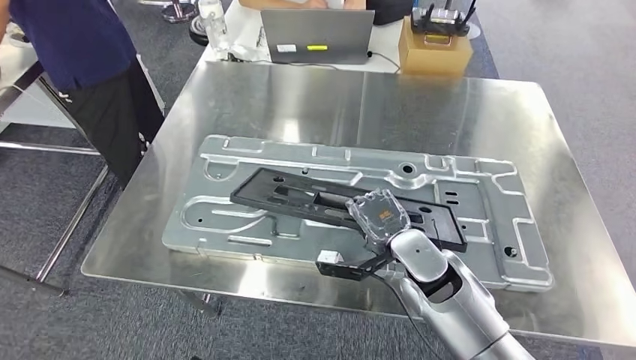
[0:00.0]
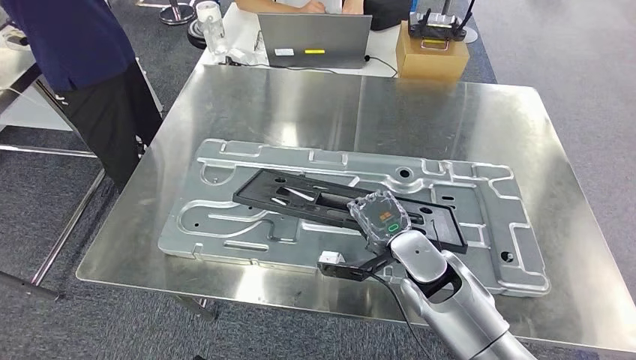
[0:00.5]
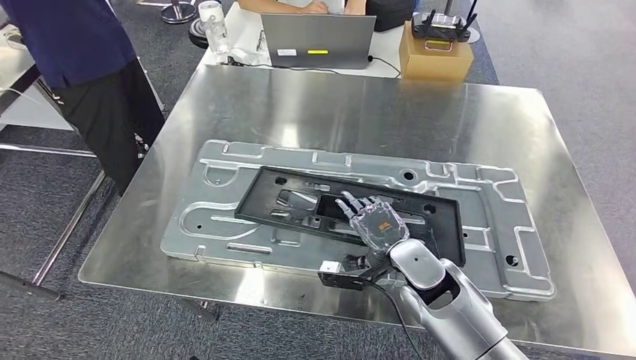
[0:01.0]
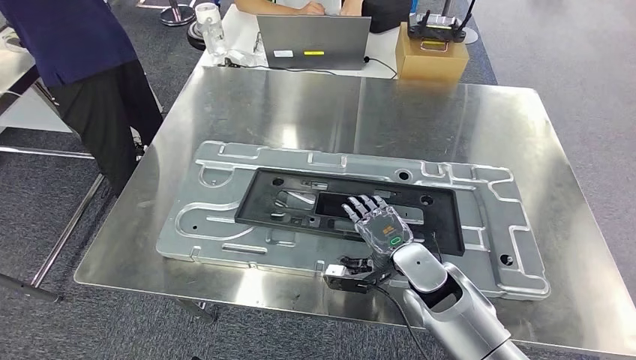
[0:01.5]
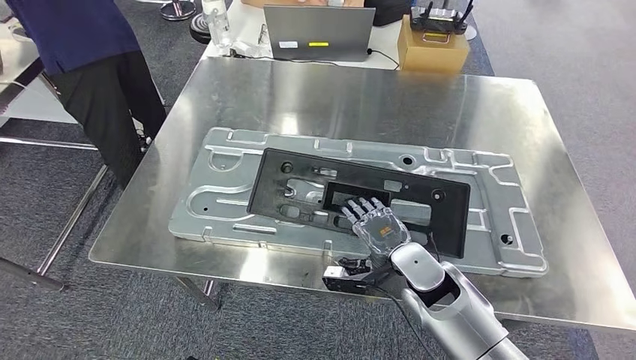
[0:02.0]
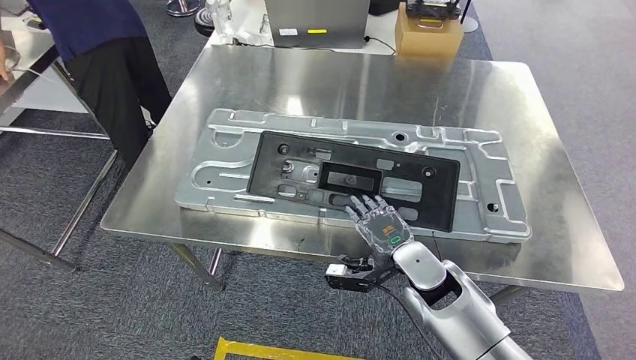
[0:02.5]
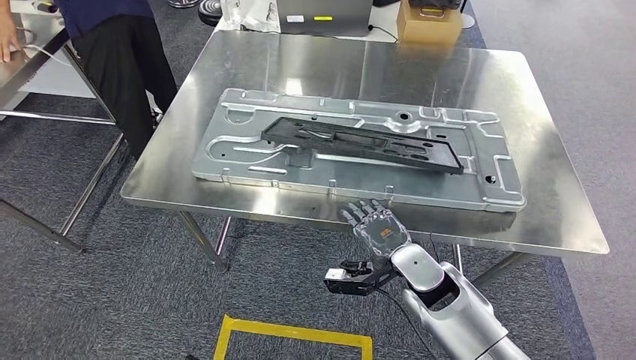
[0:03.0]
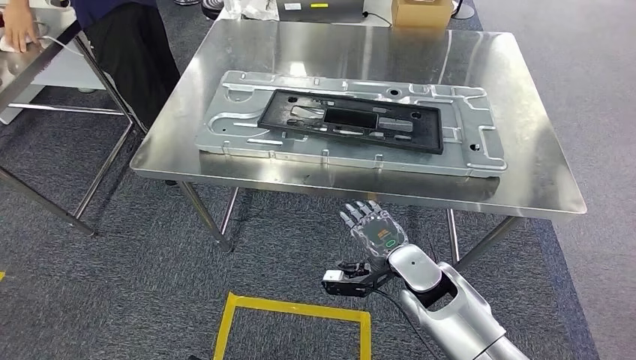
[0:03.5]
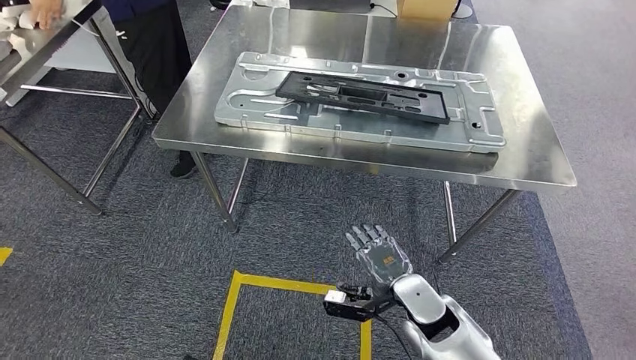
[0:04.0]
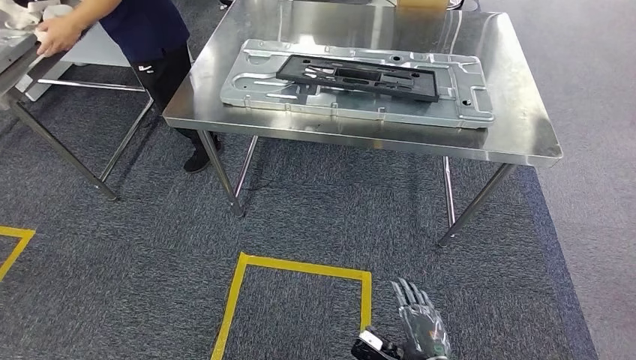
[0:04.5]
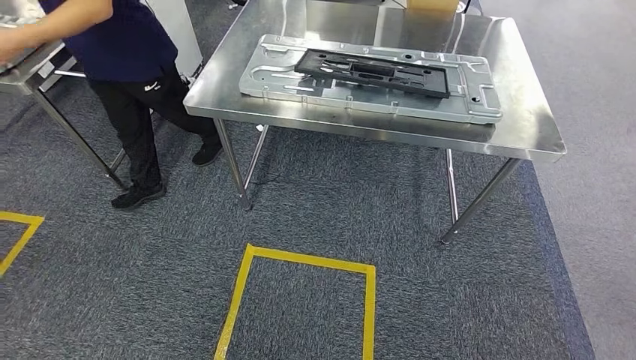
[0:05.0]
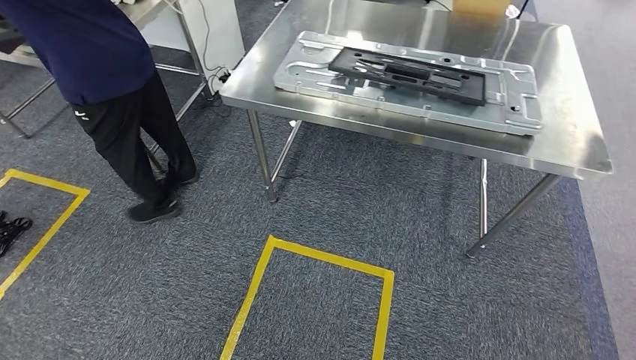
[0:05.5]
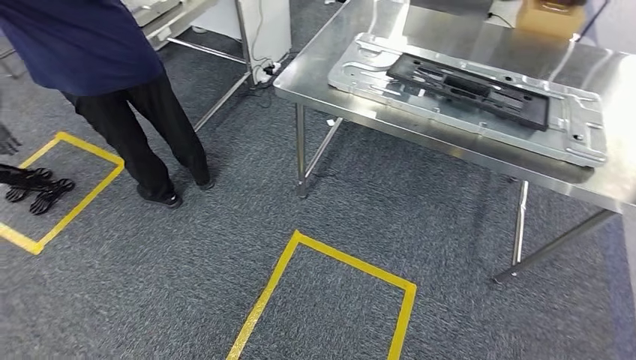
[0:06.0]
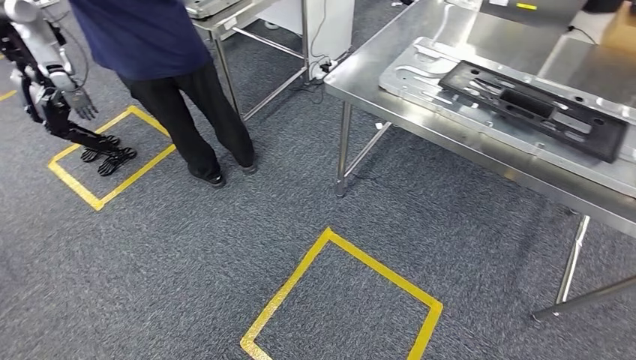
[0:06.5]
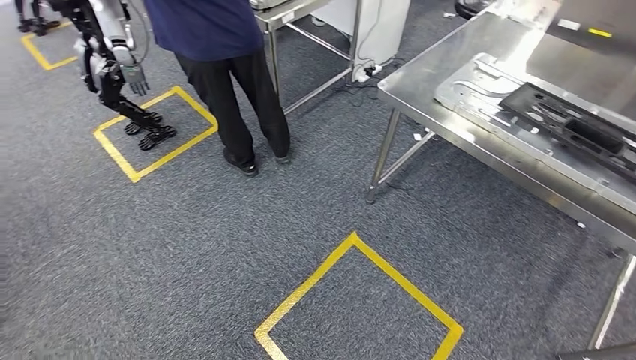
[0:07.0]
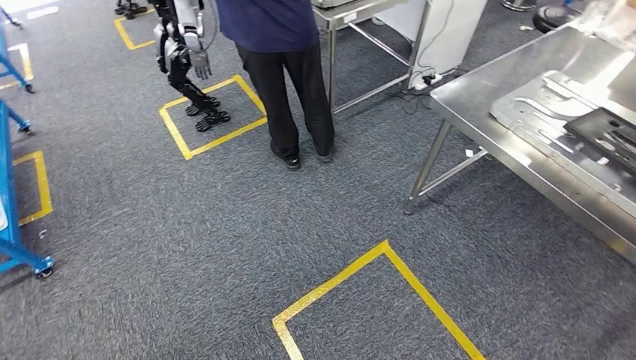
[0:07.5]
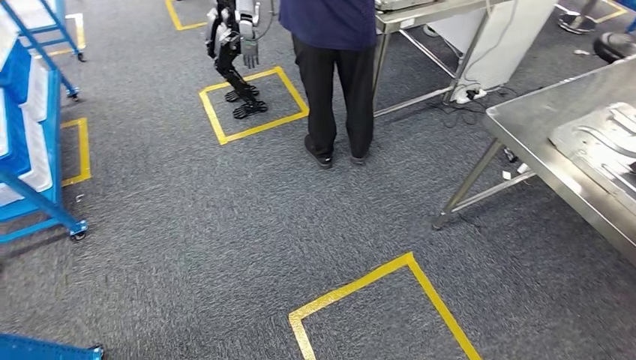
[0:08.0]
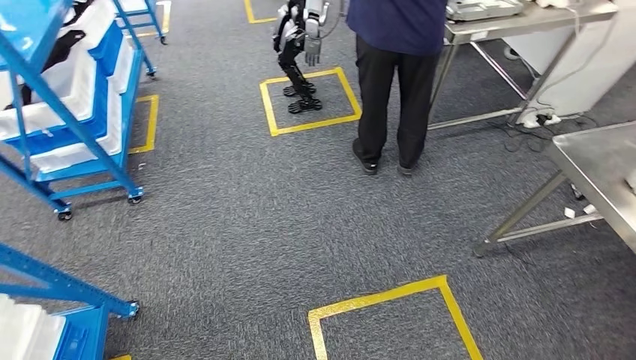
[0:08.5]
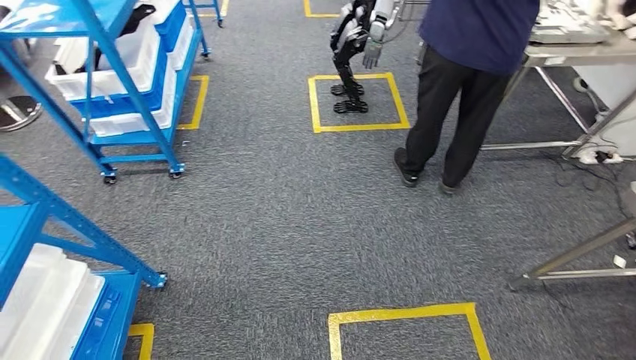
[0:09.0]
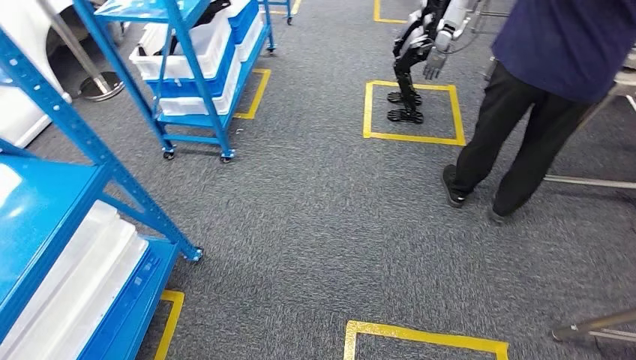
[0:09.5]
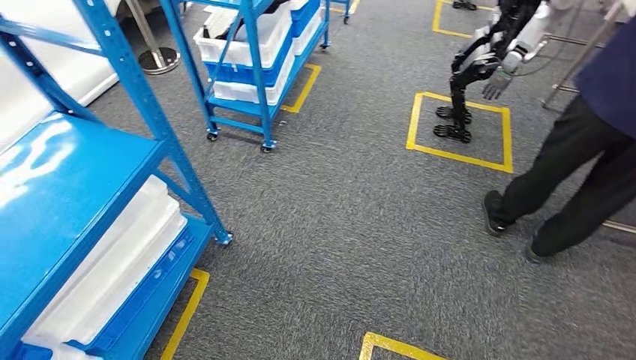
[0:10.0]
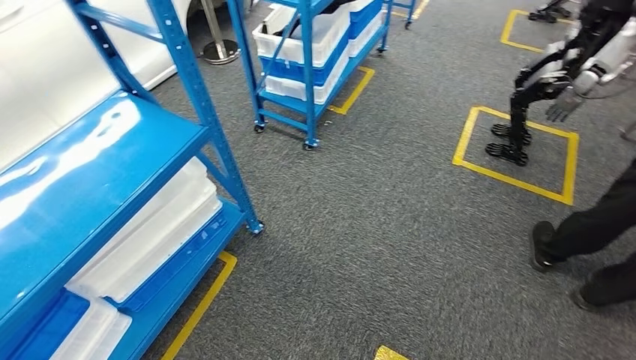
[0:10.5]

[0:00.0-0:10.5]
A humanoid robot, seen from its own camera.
Step, 0:00.0 to 0:04.0: Insert the large parts into the corresponding slots on the workbench.

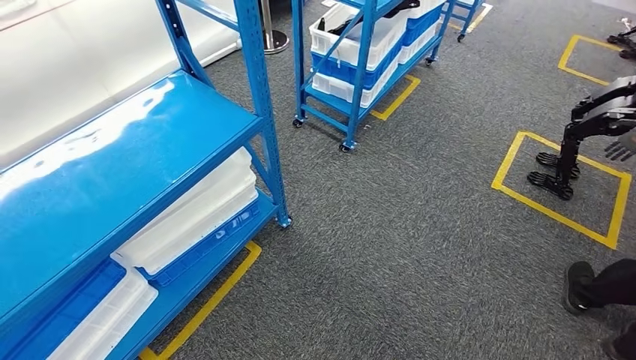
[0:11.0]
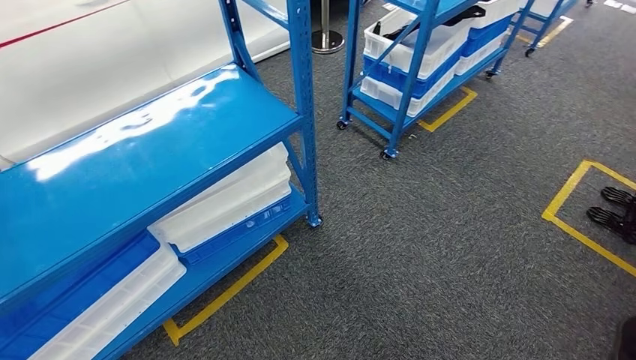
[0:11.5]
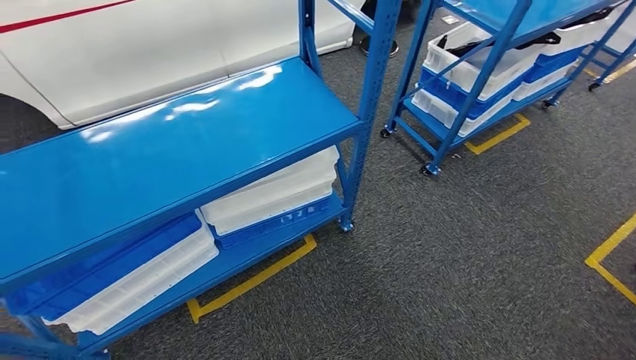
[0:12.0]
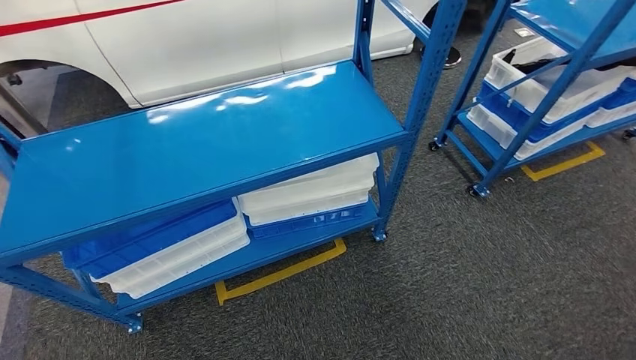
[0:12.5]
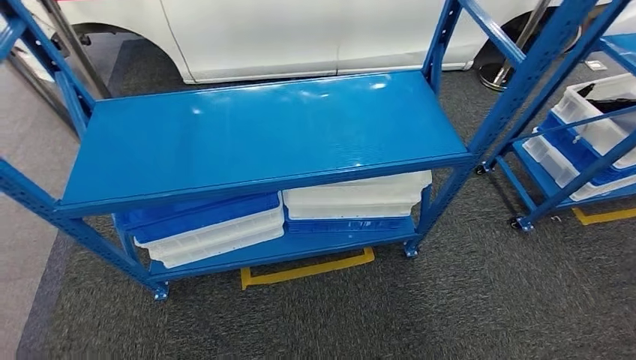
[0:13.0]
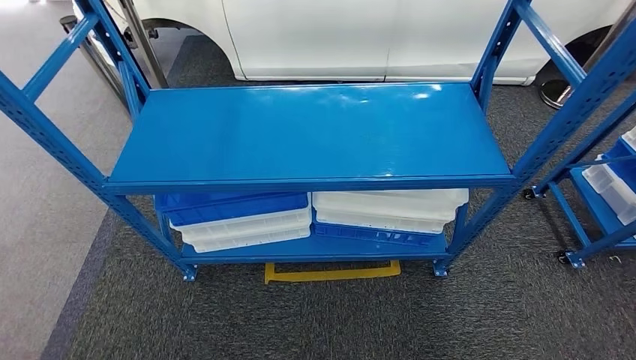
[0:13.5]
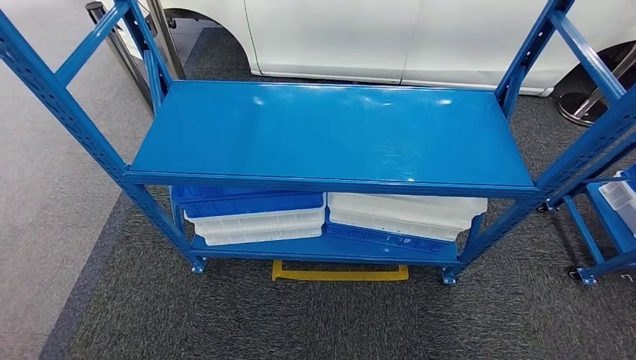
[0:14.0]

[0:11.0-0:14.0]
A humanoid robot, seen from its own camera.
Step, 0:11.0 to 0:14.0: Return to the initial position at the shelf.
